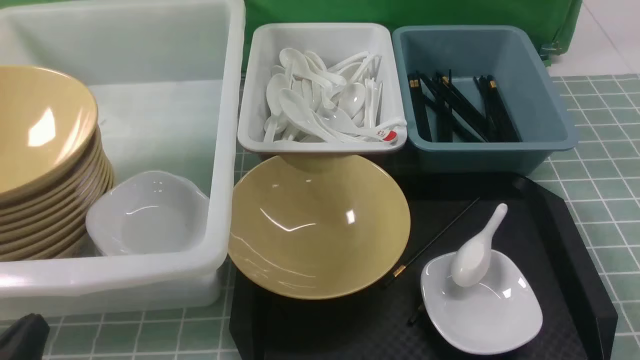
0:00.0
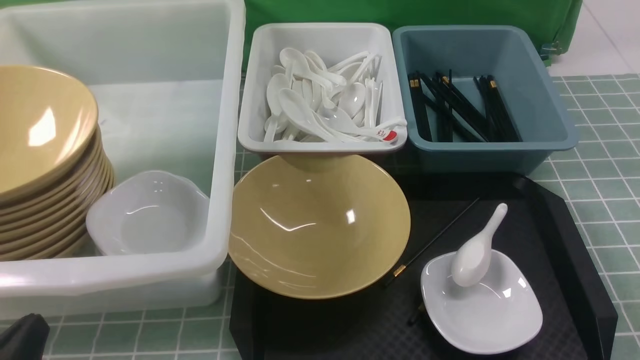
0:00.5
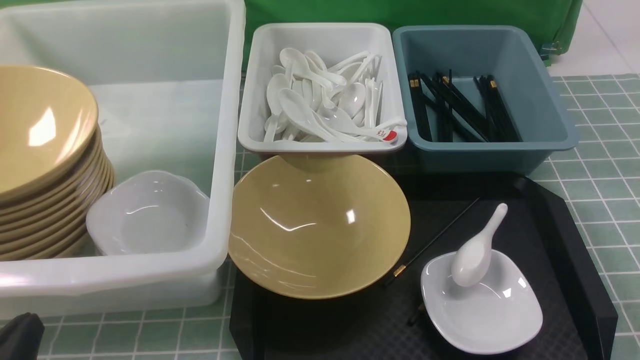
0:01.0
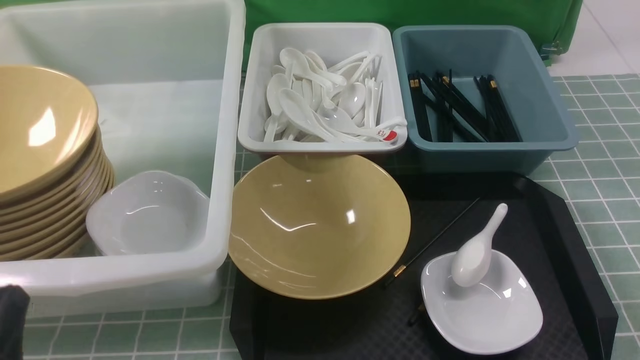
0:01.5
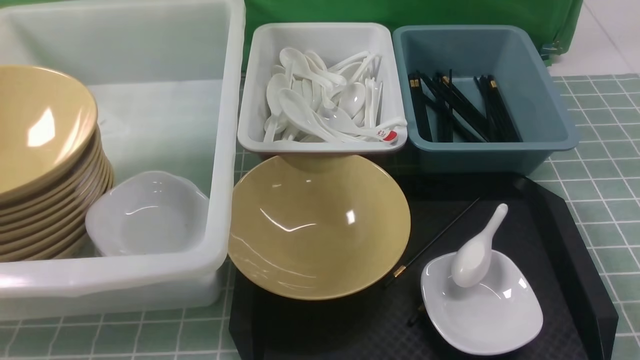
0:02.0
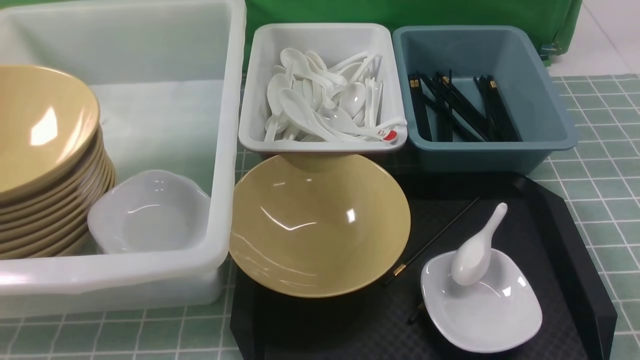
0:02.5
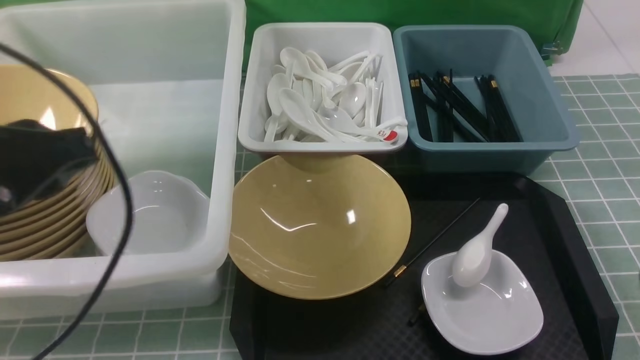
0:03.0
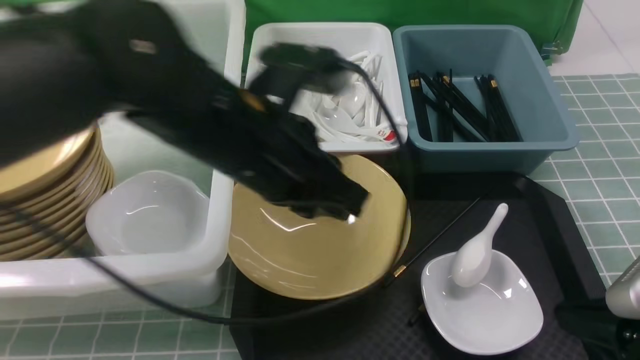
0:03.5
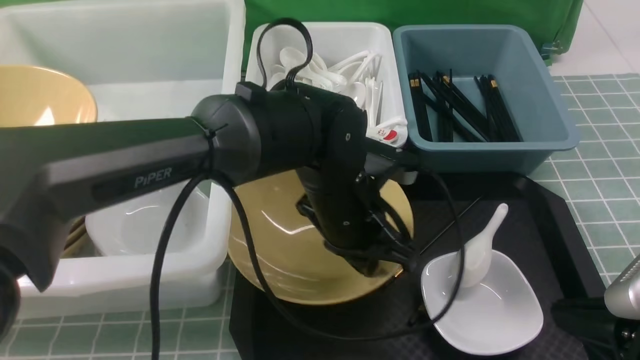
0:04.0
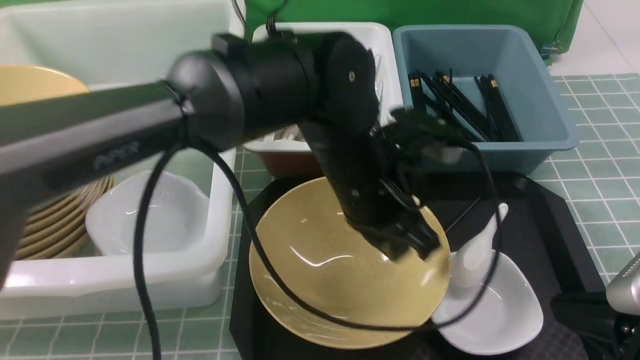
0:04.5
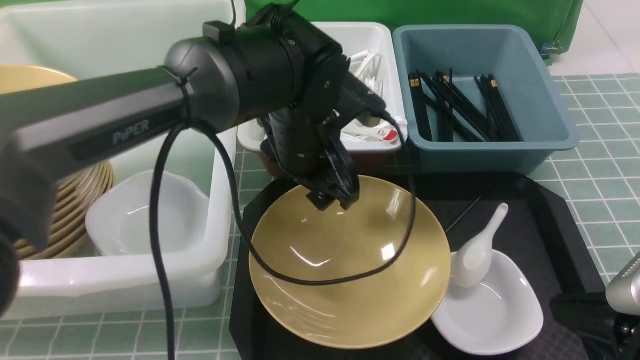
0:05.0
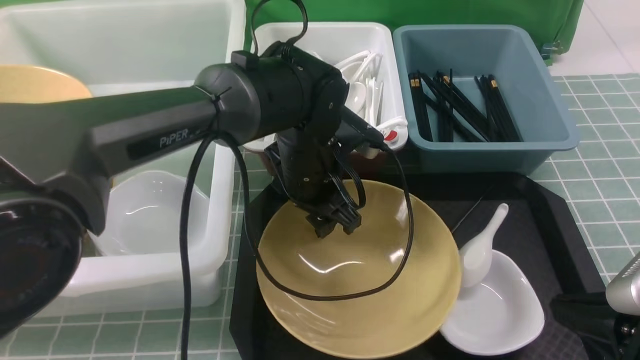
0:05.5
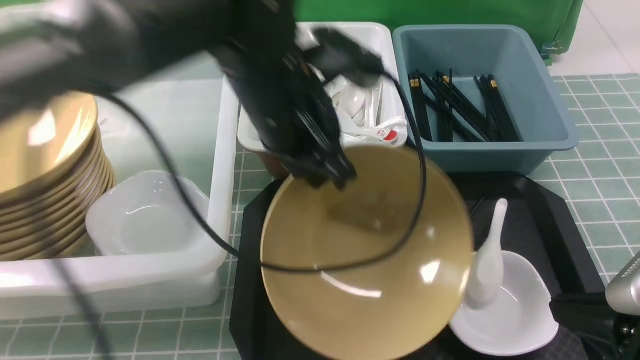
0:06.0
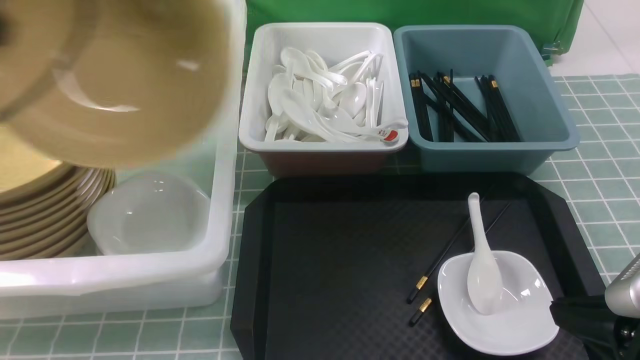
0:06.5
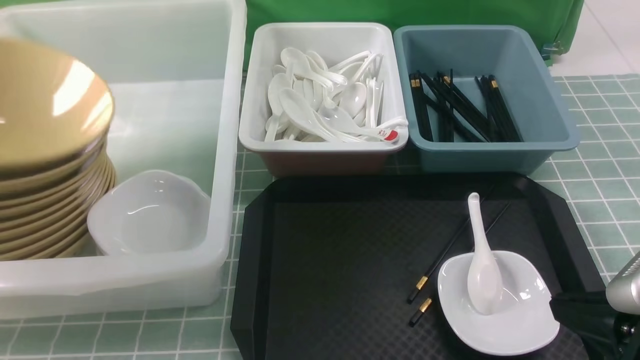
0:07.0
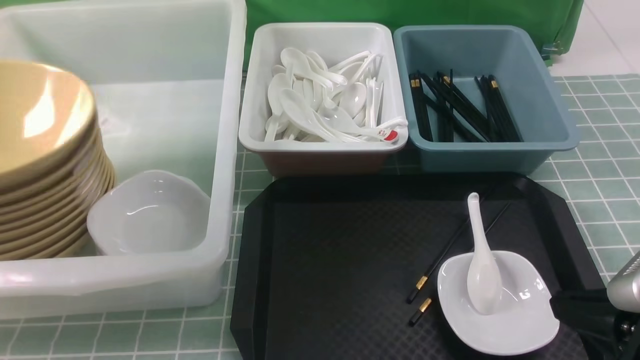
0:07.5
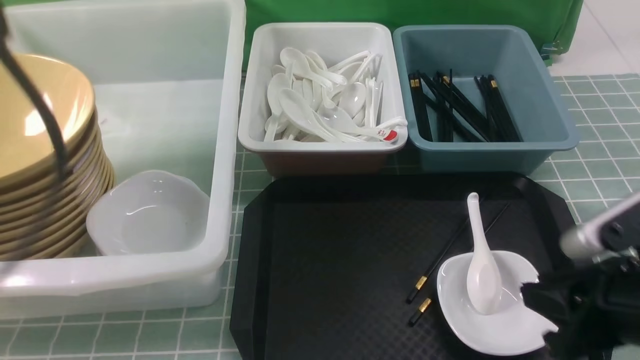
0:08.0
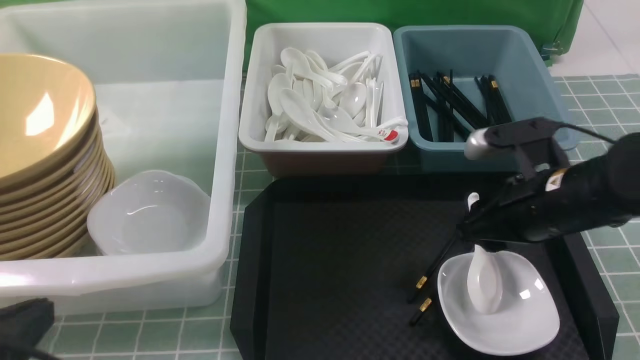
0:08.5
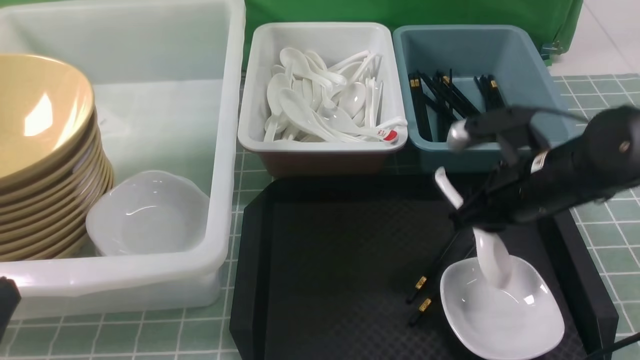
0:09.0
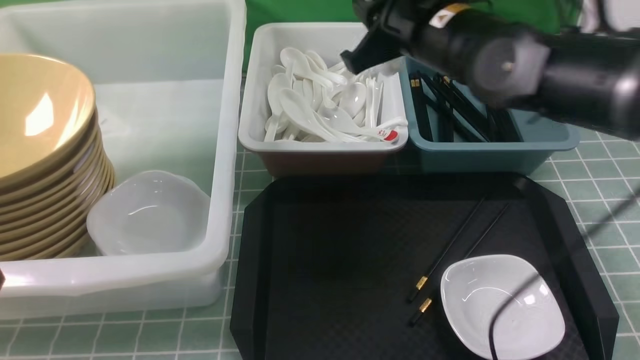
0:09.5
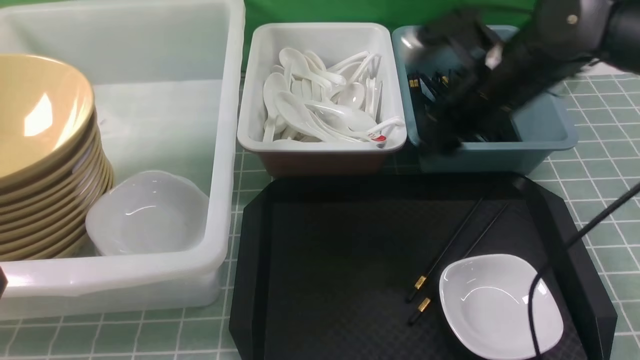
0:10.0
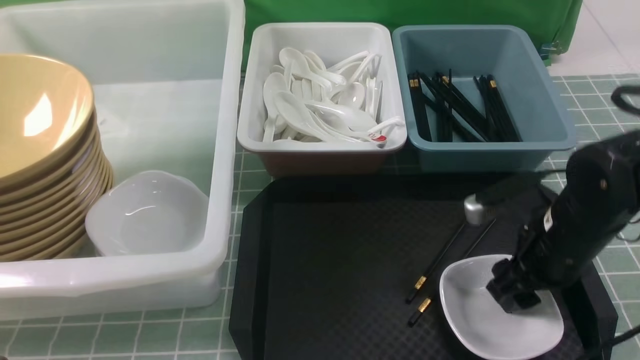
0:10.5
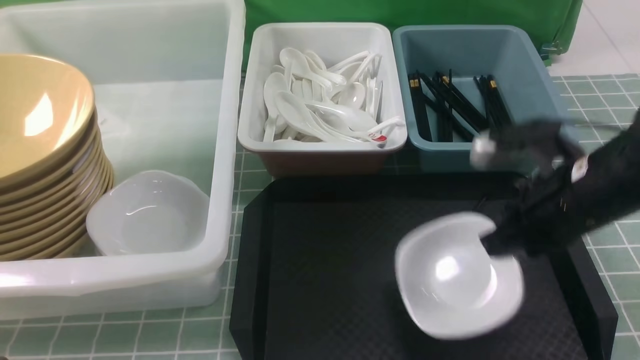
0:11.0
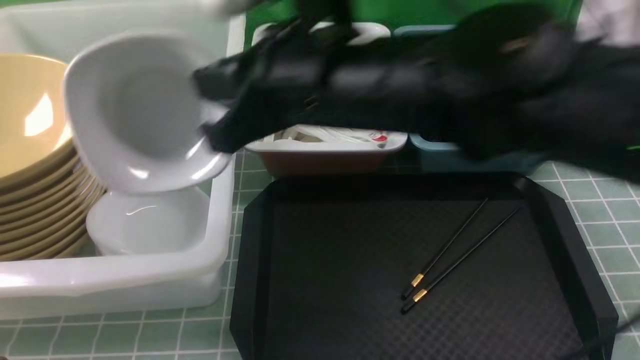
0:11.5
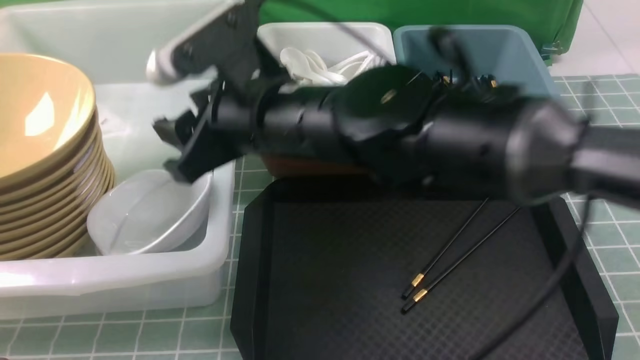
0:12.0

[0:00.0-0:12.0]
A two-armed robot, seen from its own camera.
Task of the whole recording: on blue table put chopsticks spoon bowls plates into blue grey white boxes.
Step, 0:00.0 to 0:05.5: use the left arm to grab the yellow noodle bowl on the left.
Step, 0:06.0 to 0:07.0: use the left arm to put the noodle bowl into the large storage box on the left.
Step, 0:07.5 to 0:09.0: use the right arm to grab the soup spoon in the middle.
Step, 0:10.0 to 0:11.0: use the right arm to grab the plate.
0:00.0 to 0:02.0: The left gripper shifts about 10 cm upward.
0:02.0 to 0:04.0: The left gripper moves to the right and forward, about 35 cm. Meanwhile the right gripper heads forward and to the left, covering about 10 cm, and goes upward and returns, some 10 cm each way.
0:04.0 to 0:06.0: The left gripper swings up and down, roughly 10 cm each way, with 2 reversals, and opens, then closes once more.
0:06.0 to 0:08.0: The left gripper travels backward, to the left and upward by about 25 cm, and opens and closes again, while the right gripper opens its fingers.
0:08.0 to 0:10.0: The right gripper goes about 20 cm forward, and opens up; the left gripper heads downward and backward, covering about 15 cm.
0:10.0 to 0:12.0: The right gripper is displaced to the left and upward by about 20 cm, and closes and opens again.

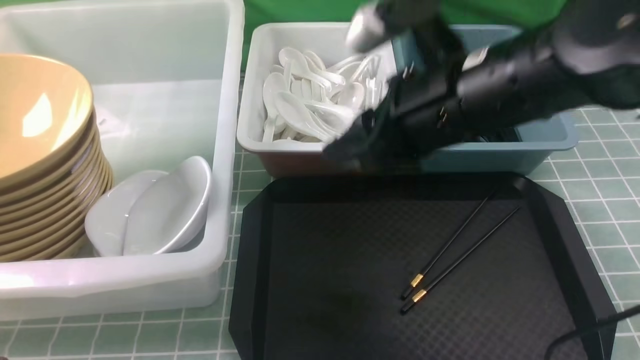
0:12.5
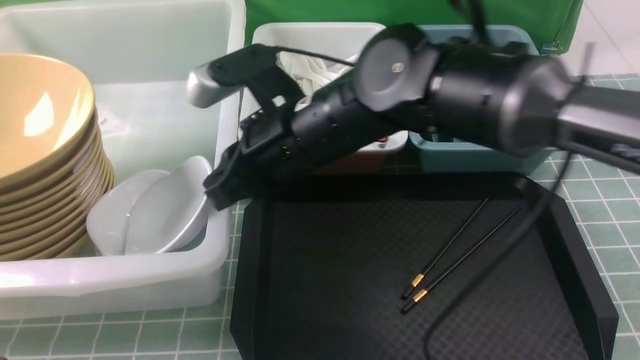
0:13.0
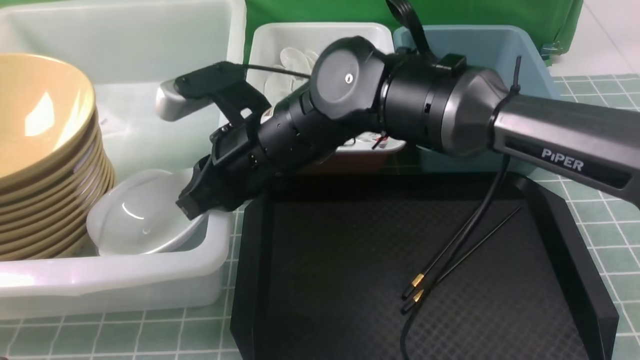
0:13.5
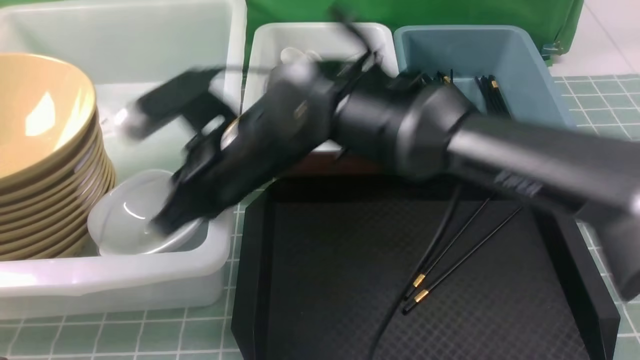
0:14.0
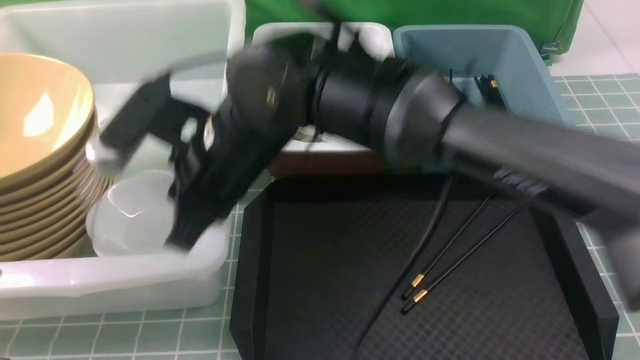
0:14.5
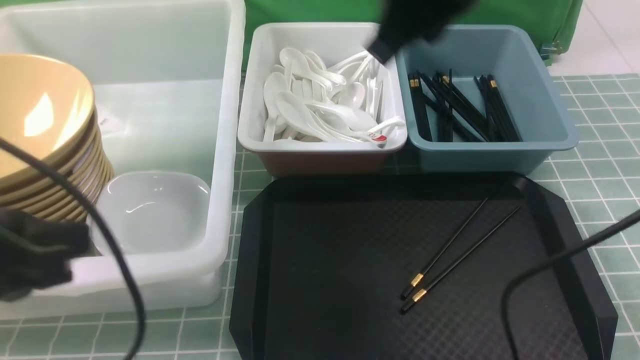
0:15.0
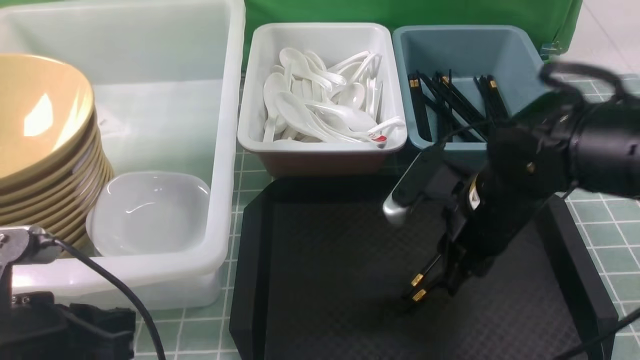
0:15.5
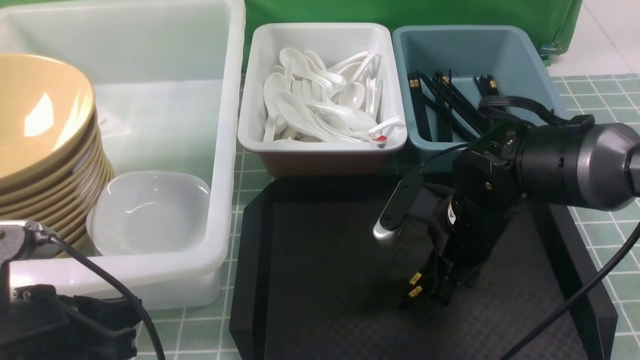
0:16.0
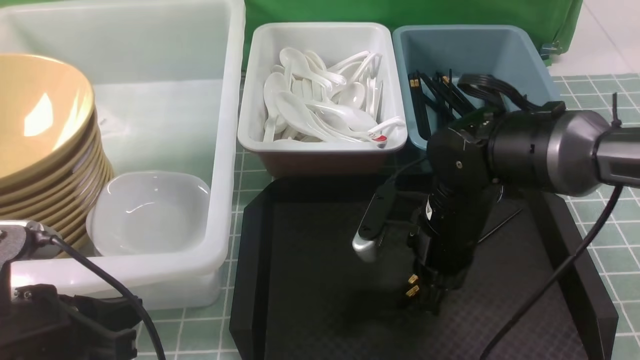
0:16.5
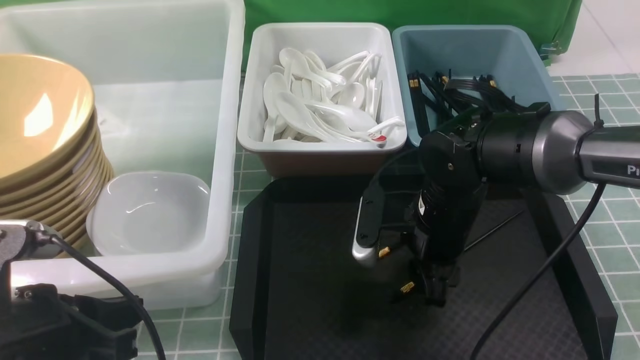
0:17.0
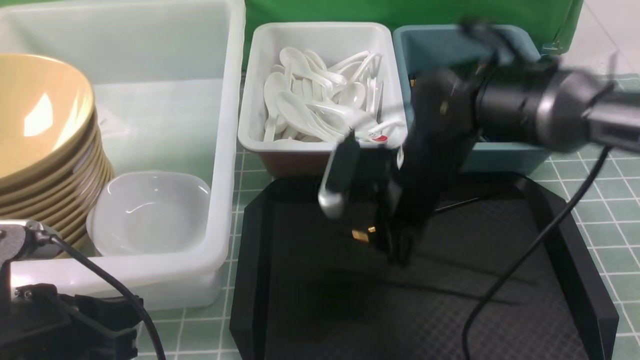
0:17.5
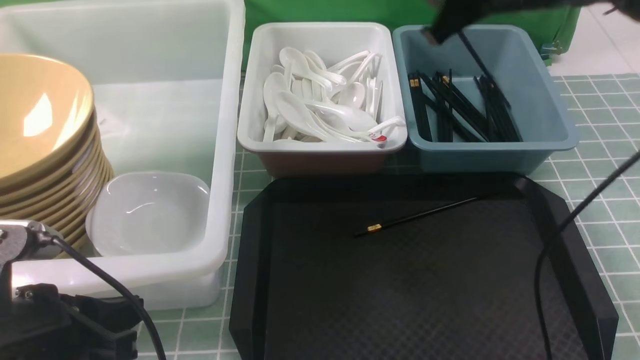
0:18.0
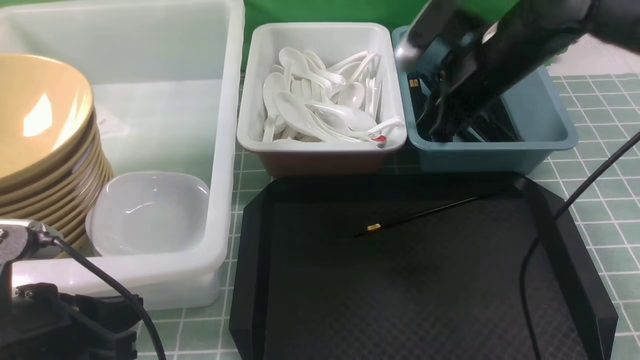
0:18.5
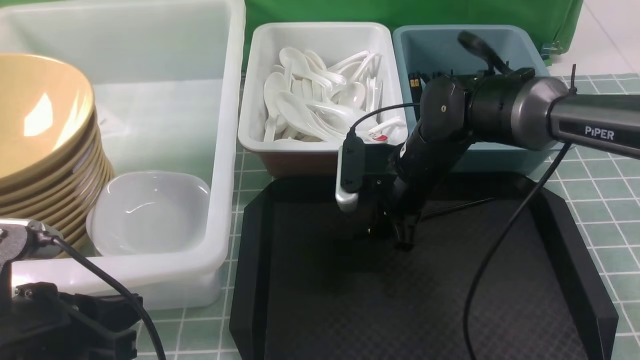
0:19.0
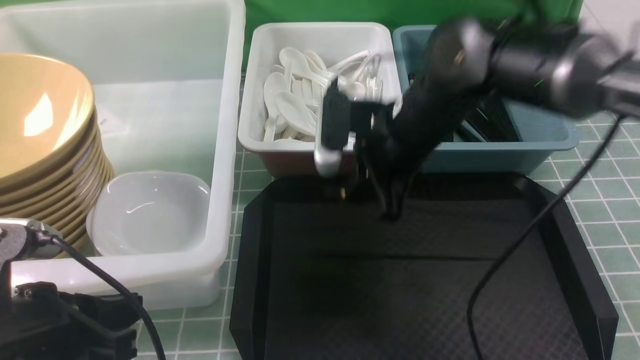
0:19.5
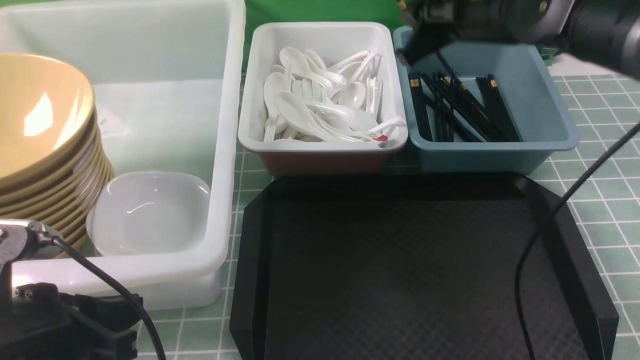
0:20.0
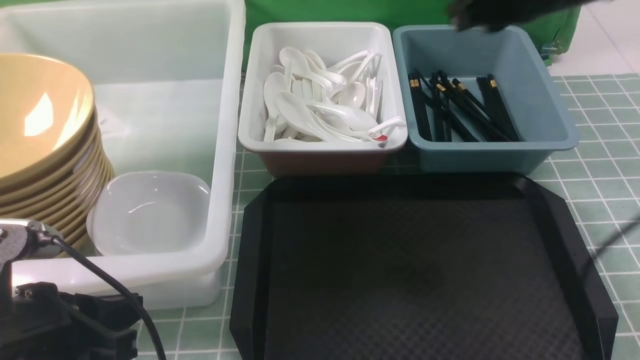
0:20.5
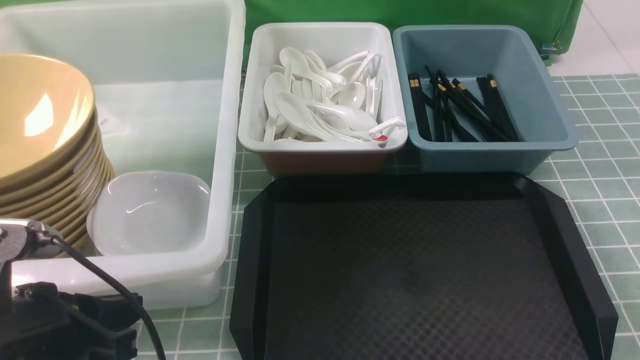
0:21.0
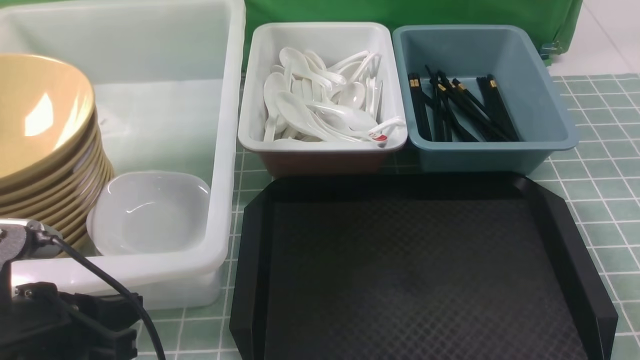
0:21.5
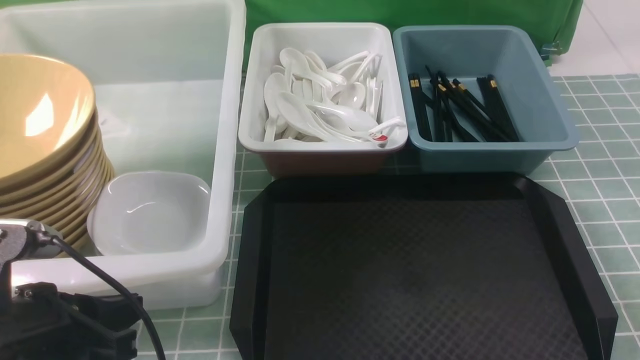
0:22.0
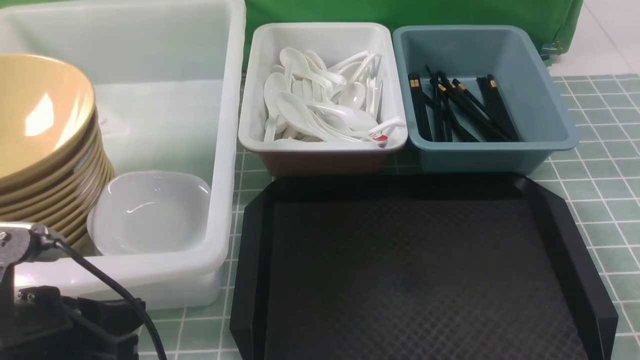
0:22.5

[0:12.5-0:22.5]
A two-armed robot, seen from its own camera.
Task of the whole recording: on blue table put chopsticks spoon bowls plates into blue grey white boxes.
Step, 0:12.5 to 0:17.5: use the right arm to grab a chopstick.
Step, 0:18.5 to 0:19.0: use the right arm to grab a chopstick.
Step, 0:19.5 to 0:20.0: use the right arm to put a chopstick into the small storage box on the right.
0:12.5 to 0:14.5: The right gripper moves to the left, roughly 15 cm.
0:14.5 to 0:16.5: The left gripper is displaced forward and downward by about 10 cm. Meanwhile the right gripper shifts roughly 25 cm to the right and downward.
0:16.5 to 0:18.5: The right gripper moves forward and upward, roughly 15 cm.
0:18.5 to 0:20.5: The right gripper heads upward and to the right, covering some 15 cm.
0:20.5 to 0:22.5: The right gripper goes about 35 cm backward and downward.
